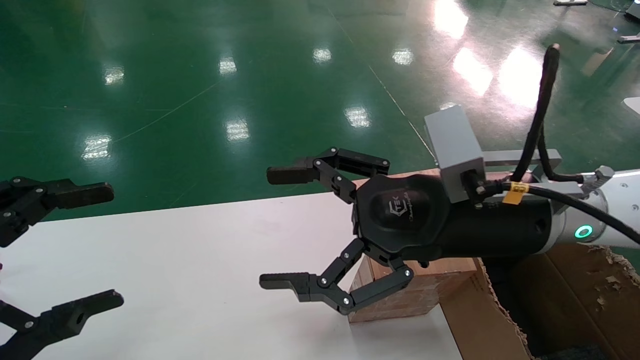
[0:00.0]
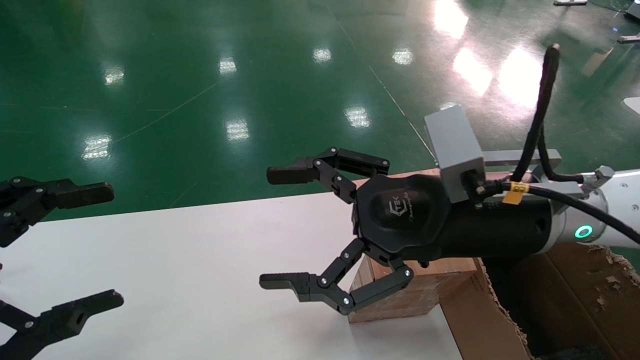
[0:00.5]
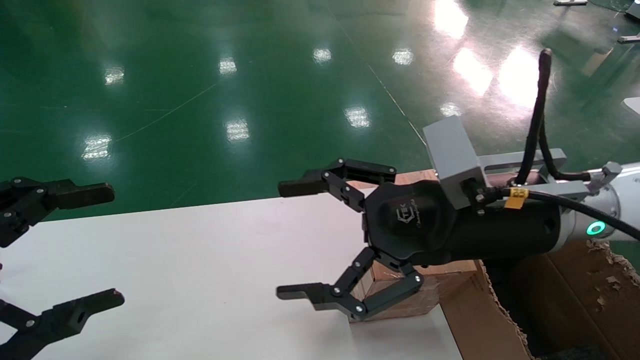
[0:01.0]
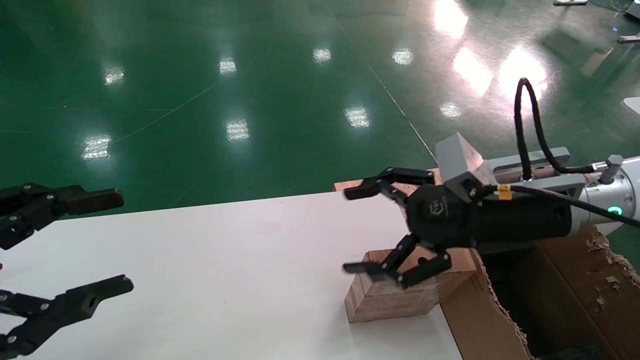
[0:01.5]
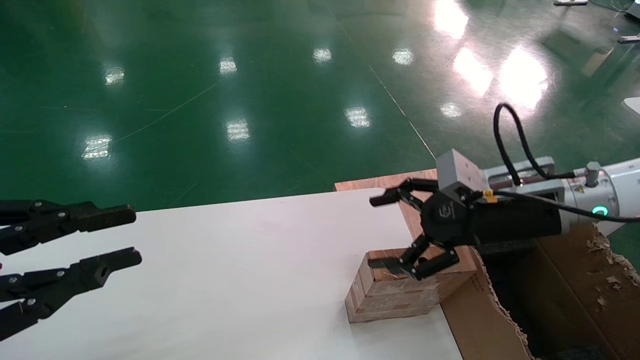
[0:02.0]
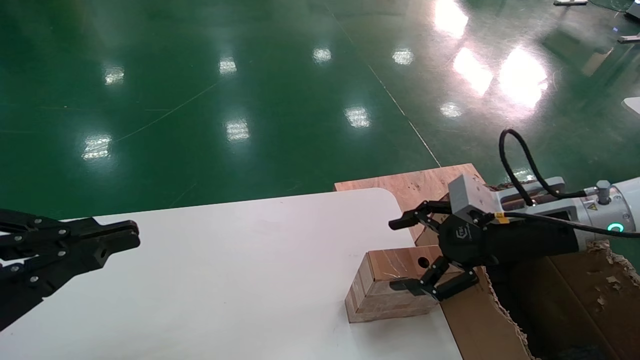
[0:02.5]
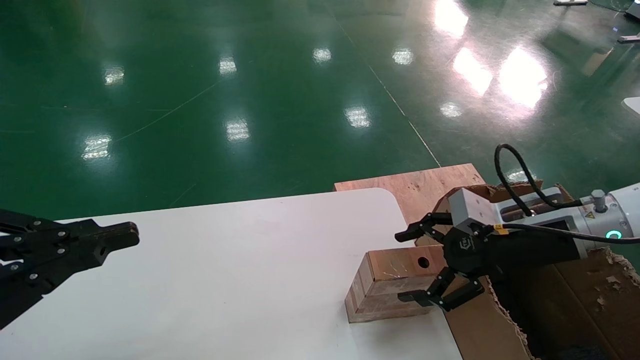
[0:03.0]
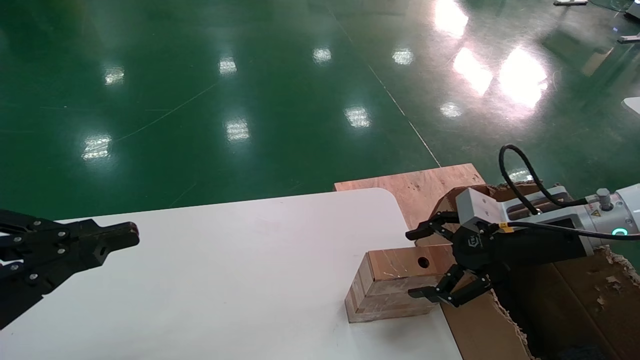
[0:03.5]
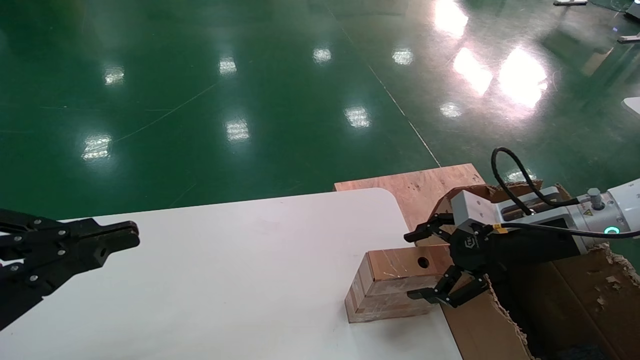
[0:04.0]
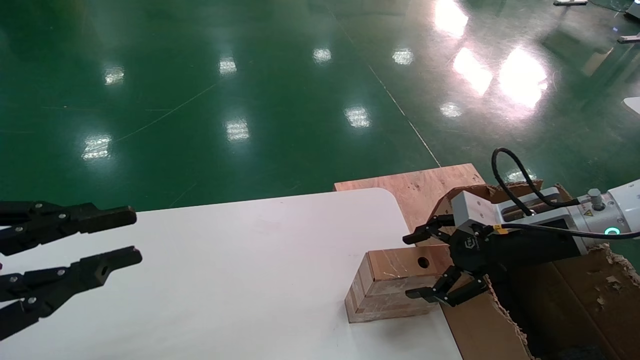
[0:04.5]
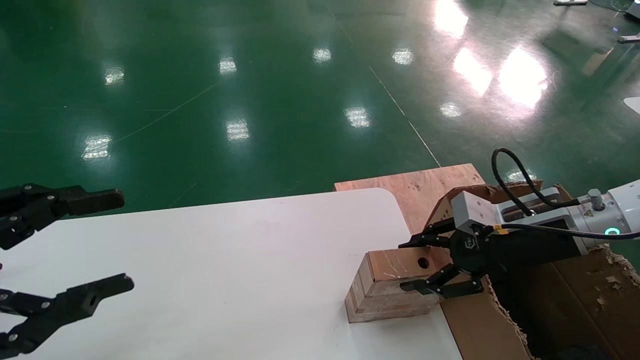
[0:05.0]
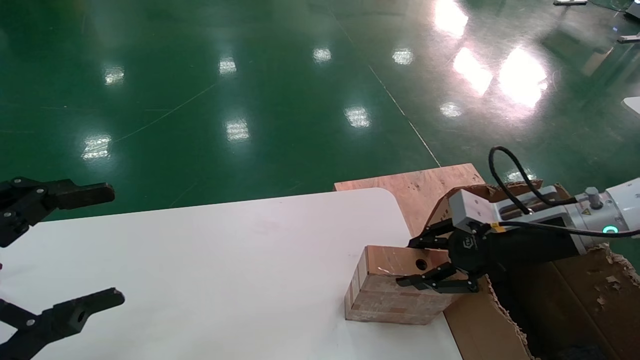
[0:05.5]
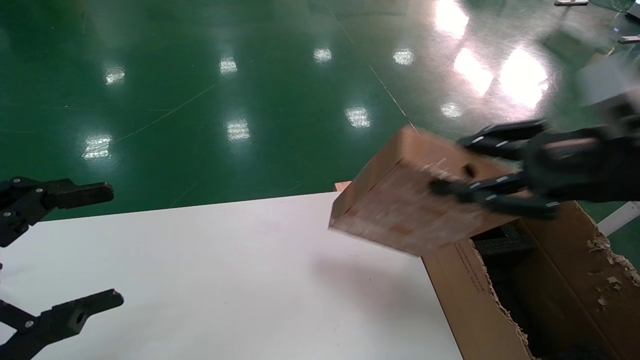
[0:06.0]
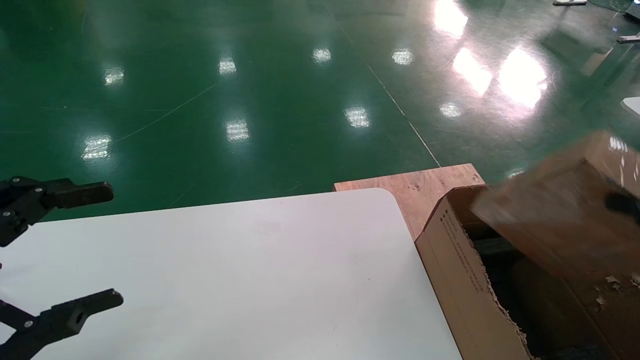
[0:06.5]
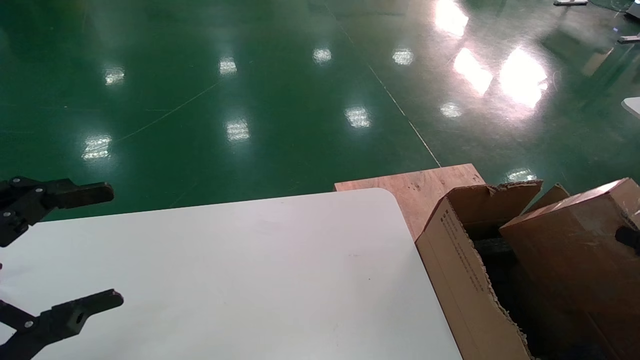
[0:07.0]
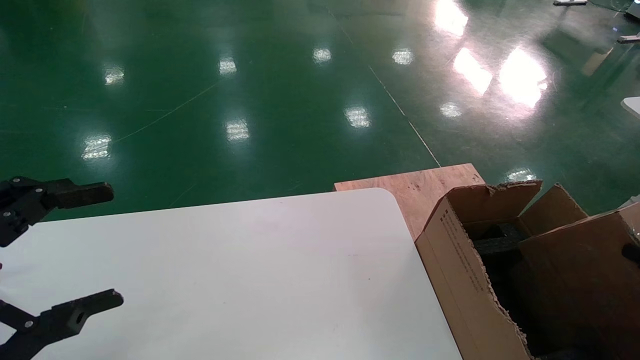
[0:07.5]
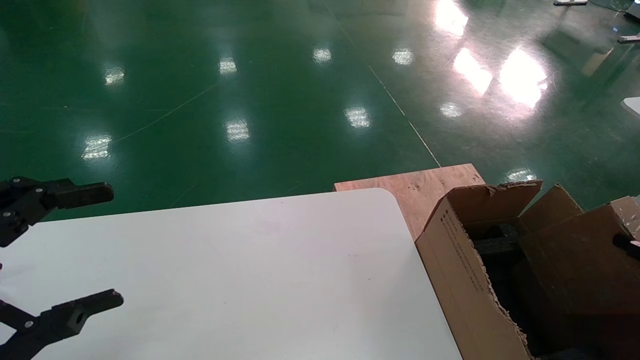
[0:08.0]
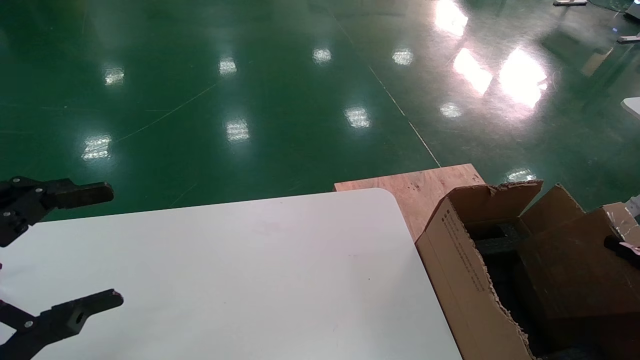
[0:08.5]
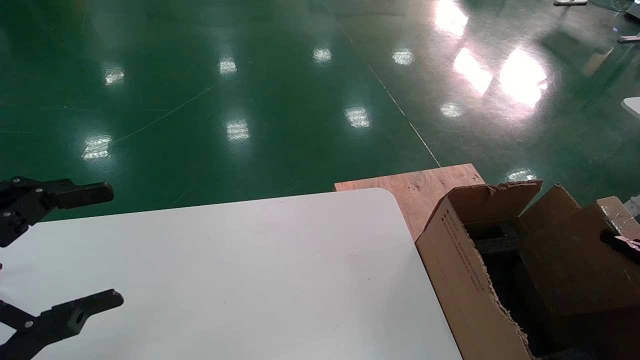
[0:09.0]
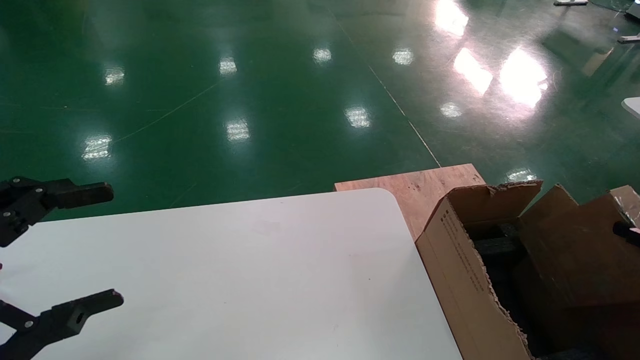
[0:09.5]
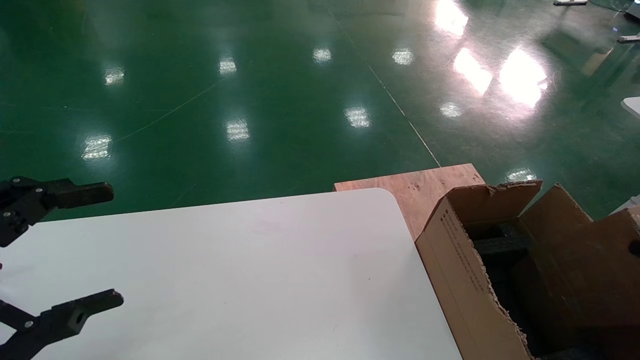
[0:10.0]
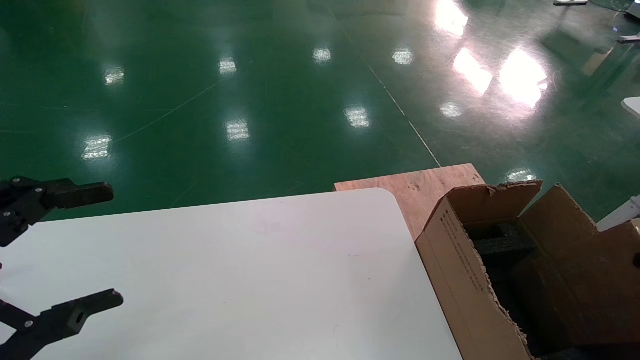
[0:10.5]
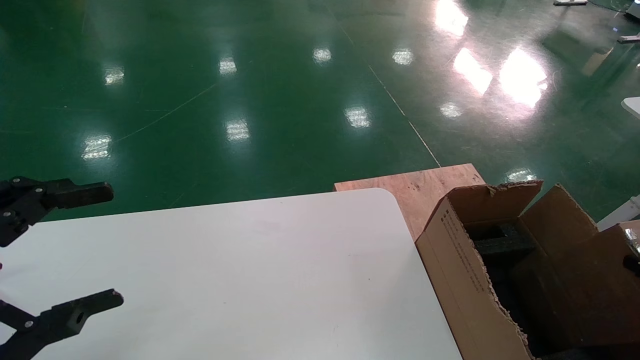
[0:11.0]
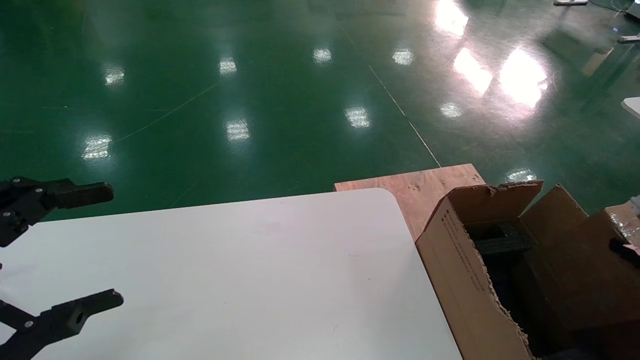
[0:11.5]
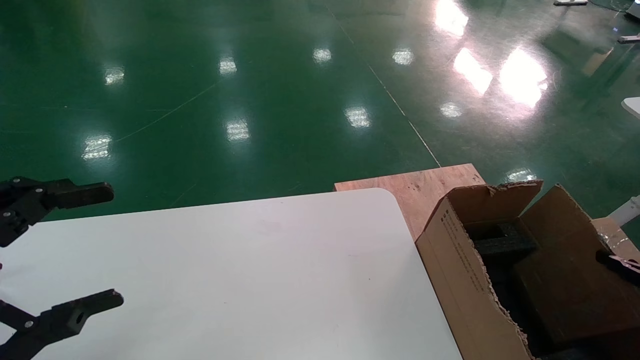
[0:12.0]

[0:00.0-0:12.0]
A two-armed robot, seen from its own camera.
Task of the whole recording: put the box on the table into the big box.
Step, 0:01.5 to 0:05.5: Pick up the mouse and the power cord paper box.
0:00.0 to 0:02.0: The left gripper closes. The right gripper moves to the right and forward, approximately 10 cm.
0:02.0 to 0:04.0: The left gripper closes. The right gripper changes place by some 5 cm.
0:04.0 to 0:06.0: The right gripper is displaced upward and backward by roughly 15 cm, and closes its fingers; the left gripper opens.
0:06.0 to 0:08.0: The right gripper shifts about 30 cm downward and to the right.

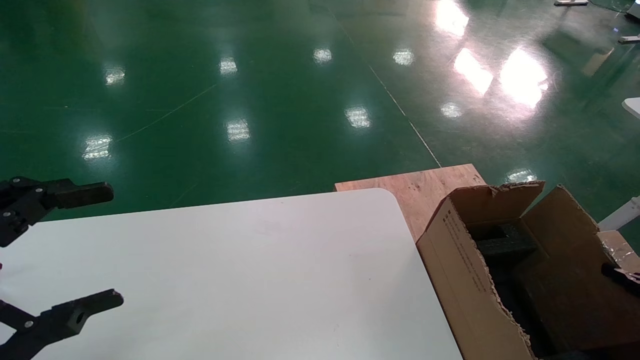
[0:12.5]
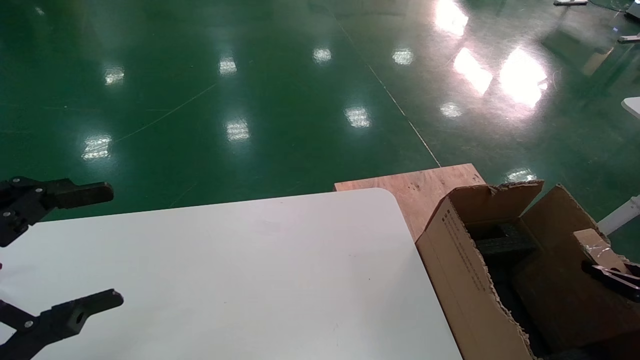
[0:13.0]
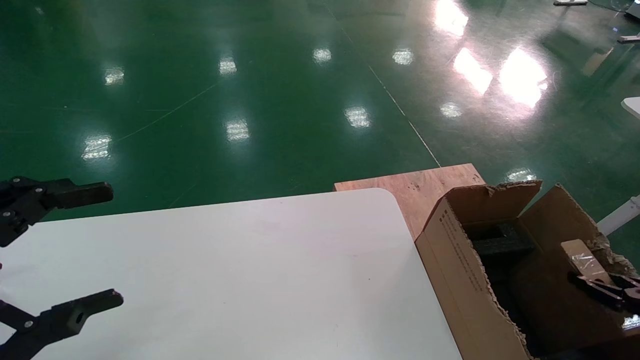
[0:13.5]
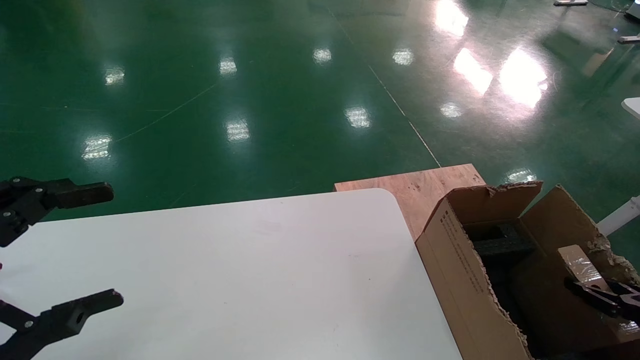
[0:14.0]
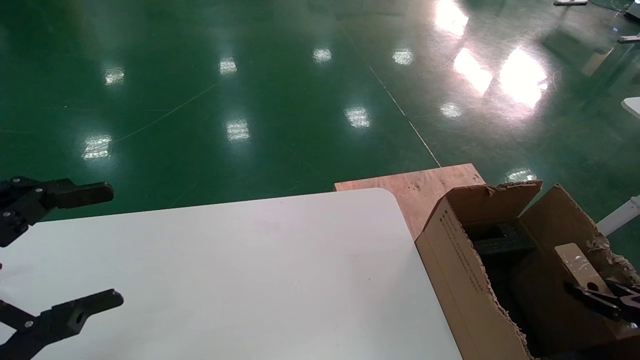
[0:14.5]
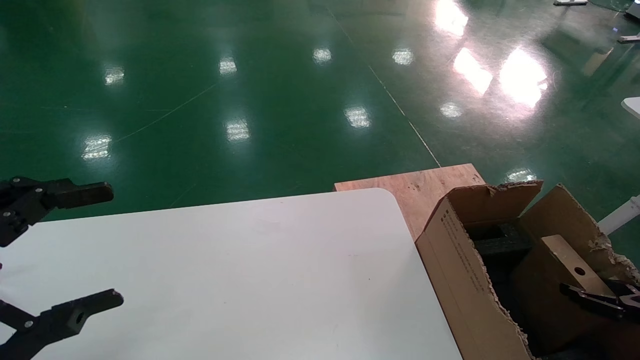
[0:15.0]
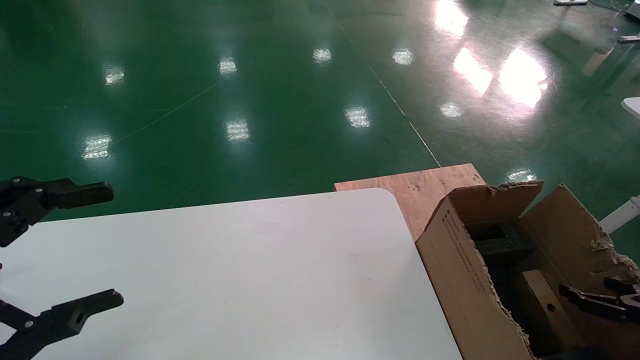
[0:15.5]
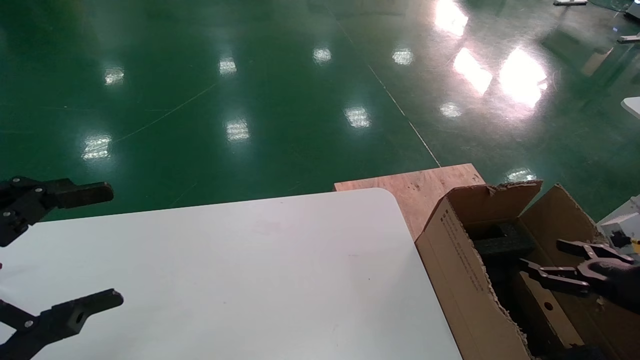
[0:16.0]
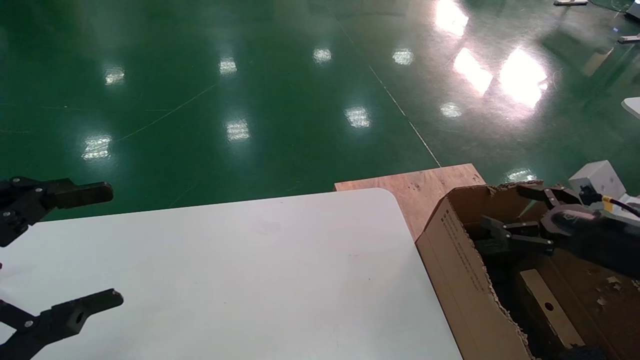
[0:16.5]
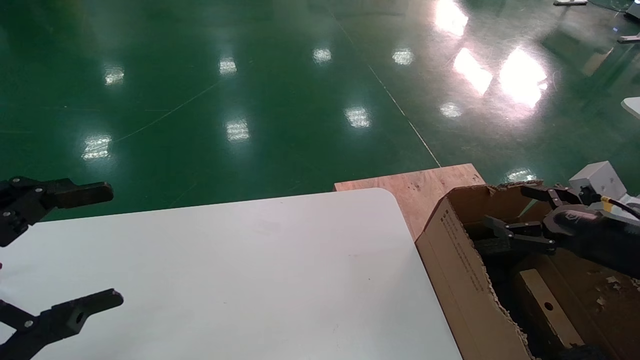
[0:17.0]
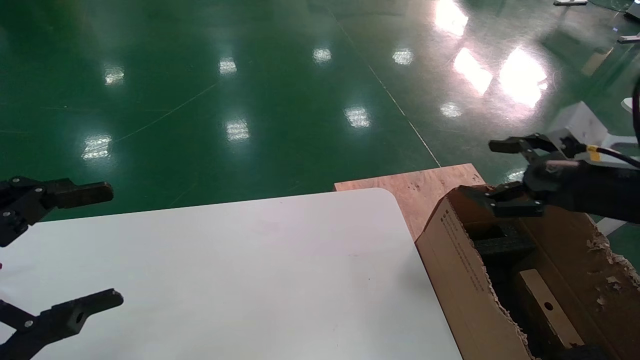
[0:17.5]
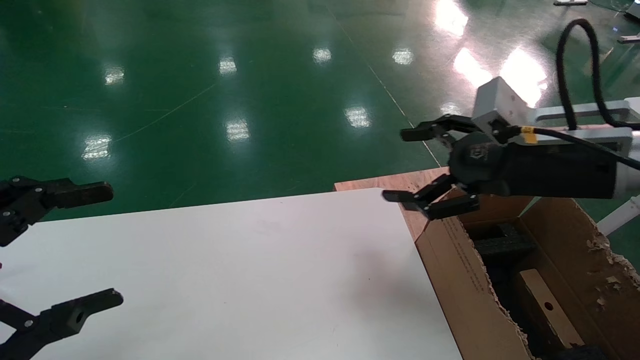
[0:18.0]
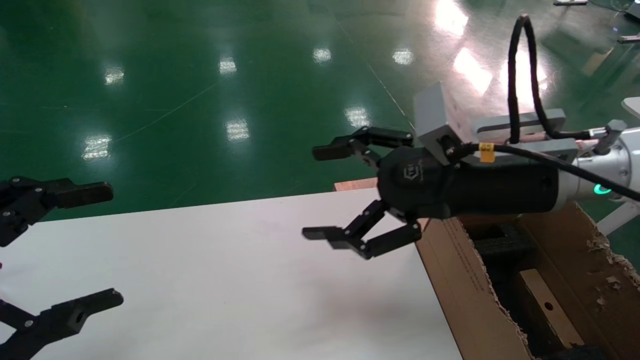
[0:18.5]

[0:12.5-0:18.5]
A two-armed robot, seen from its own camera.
Task of the whole recording: put the box on the table into the big box.
Step, 0:12.5 to 0:15.0: Place the mouse and the power cord paper box into the container.
0:12.5 to 0:14.5: The right gripper ends up roughly 5 cm from where it was.
0:14.5 to 0:16.5: The right gripper goes some 15 cm upward, to the left and forward, and opens its fingers.
0:16.5 to 0:18.5: The right gripper heads to the left and upward, covering approximately 25 cm.
